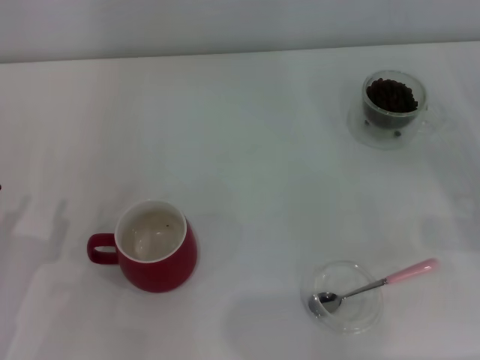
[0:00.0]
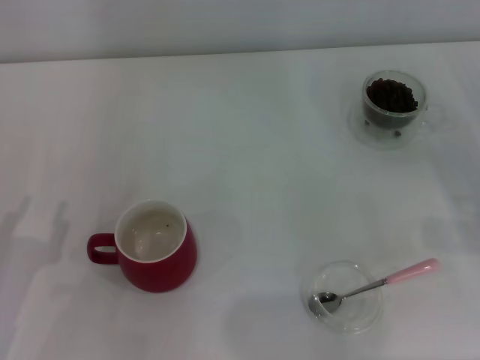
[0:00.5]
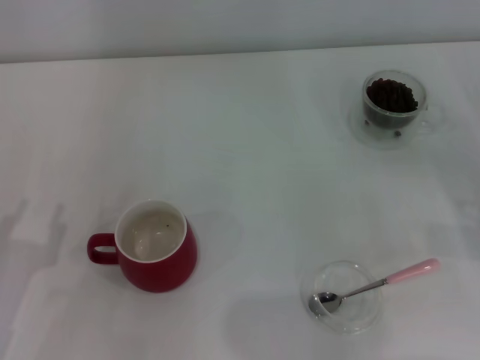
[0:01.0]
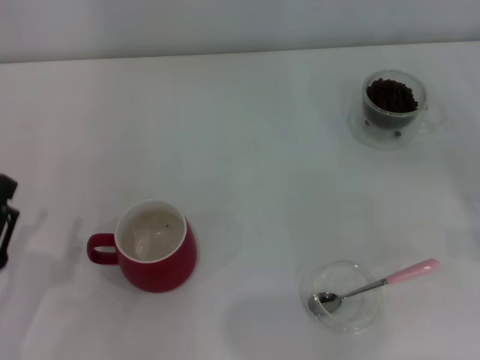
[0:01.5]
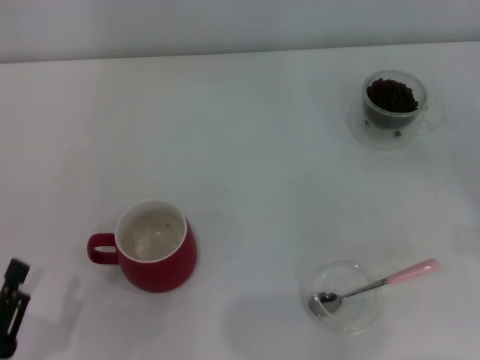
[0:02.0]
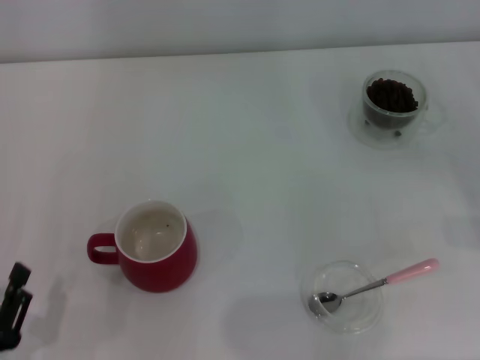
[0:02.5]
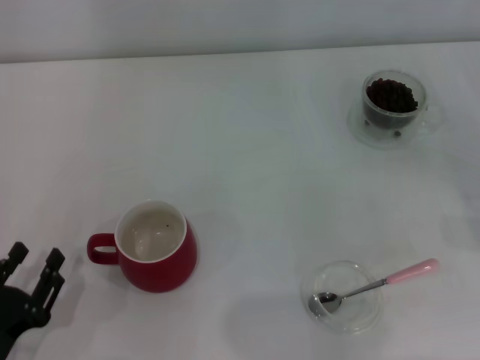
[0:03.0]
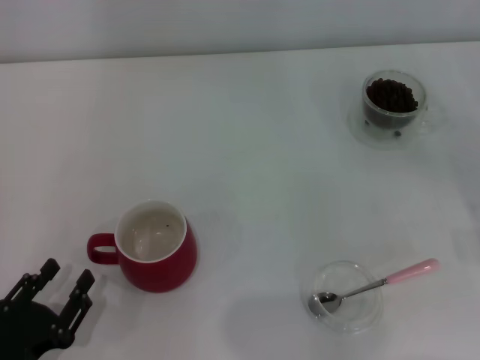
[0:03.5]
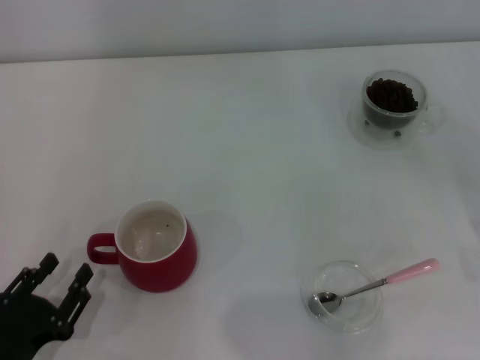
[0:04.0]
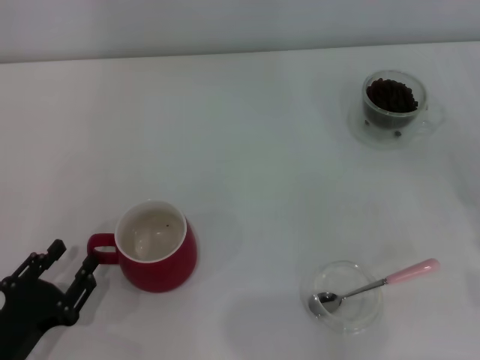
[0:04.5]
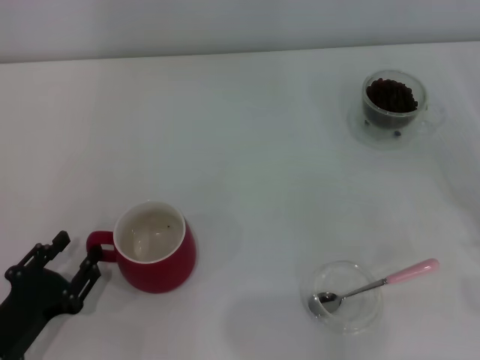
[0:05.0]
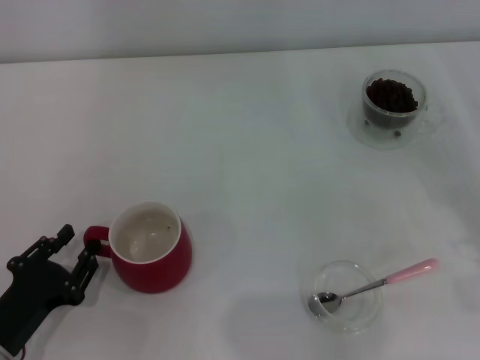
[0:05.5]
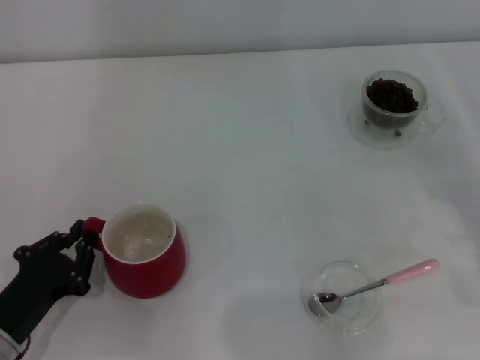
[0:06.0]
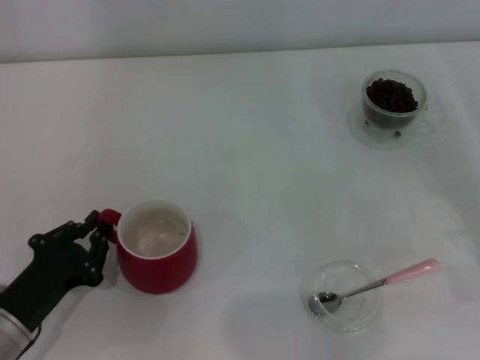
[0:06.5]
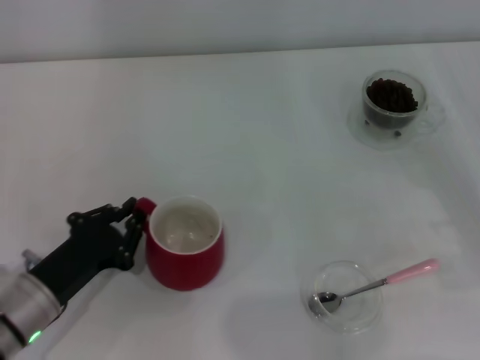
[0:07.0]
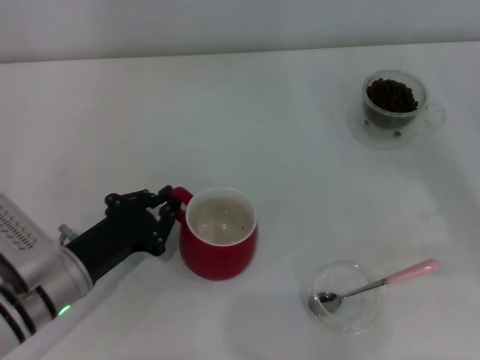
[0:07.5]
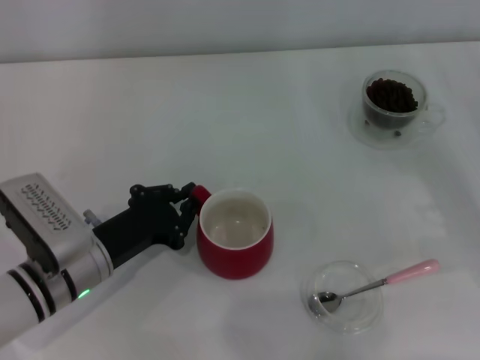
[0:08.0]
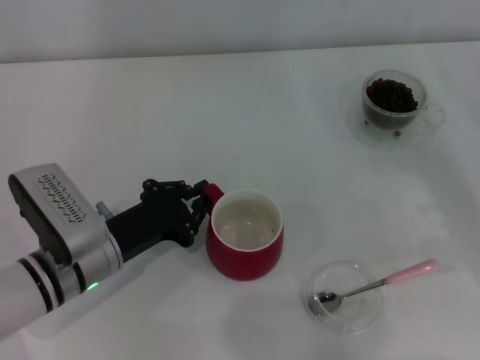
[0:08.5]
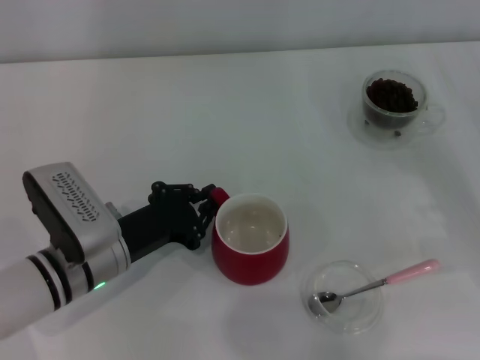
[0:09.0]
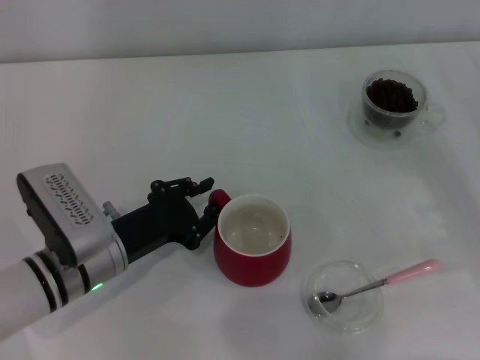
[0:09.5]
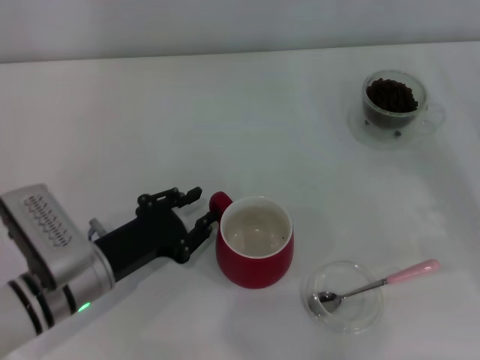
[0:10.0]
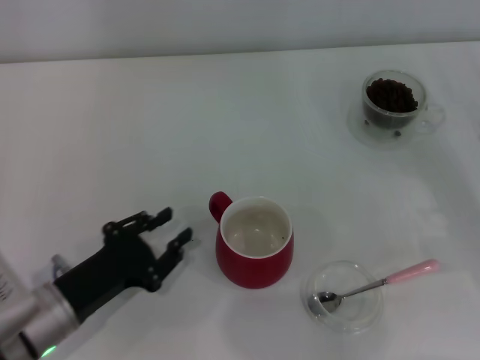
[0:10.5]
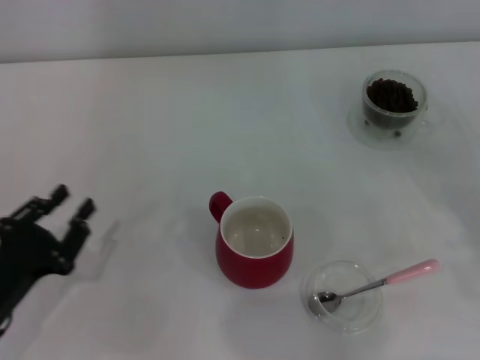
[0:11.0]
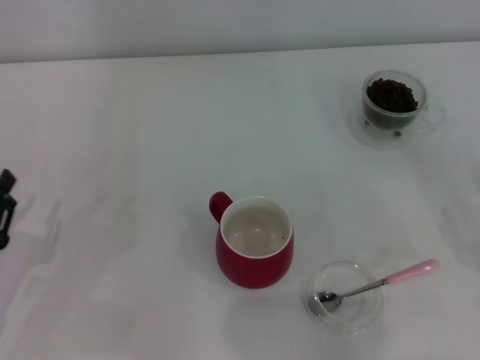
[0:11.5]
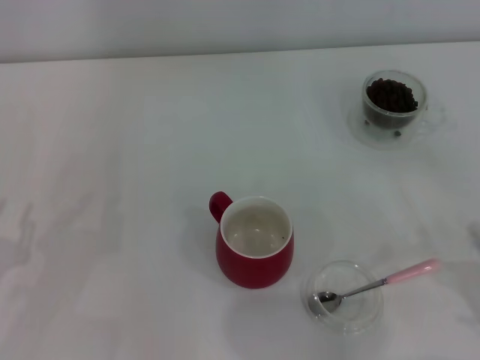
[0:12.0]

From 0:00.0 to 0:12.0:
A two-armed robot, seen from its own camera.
Task of the whole recording: Use a pink spoon to take out the coffee beans from the glass and pour them into the red cup.
Step, from 0:00.0 to 0:10.0: Move the cup to the center of view with the left gripper.
From 0:00.0 to 0:02.0: The left gripper heads backward, covering roughly 10 cm.
From 0:02.0 to 0:04.0: The left gripper ends up roughly 5 cm from where it was.
From 0:04.0 to 0:06.0: The left gripper is displaced forward by roughly 5 cm, and closes its fingers.
From 0:06.0 to 0:08.0: The left gripper shifts some 10 cm forward and to the right.
From 0:08.0 to 0:10.0: The left gripper opens its fingers.
From 0:10.0 to 0:12.0: The left gripper travels to the left and backward by roughly 15 cm, while the right gripper heads backward and downward, covering about 15 cm.

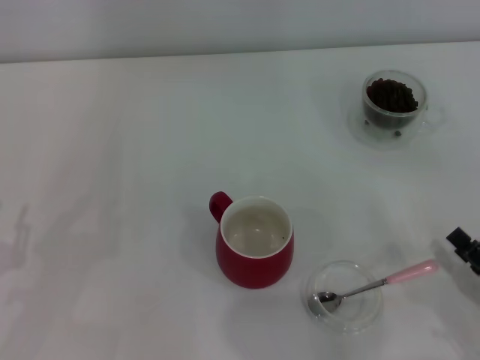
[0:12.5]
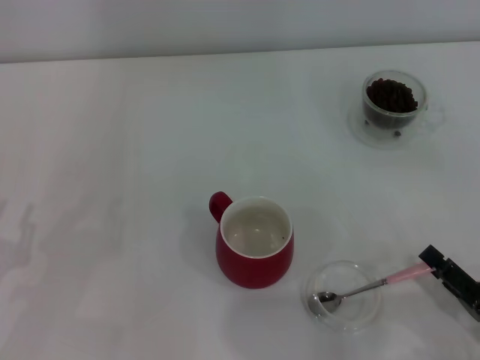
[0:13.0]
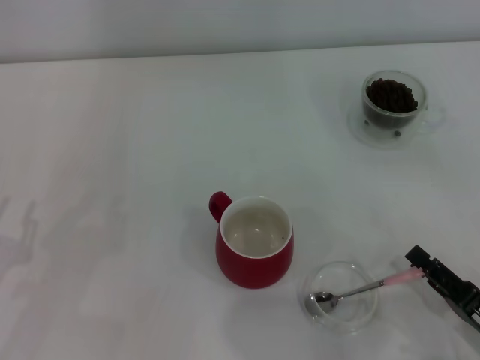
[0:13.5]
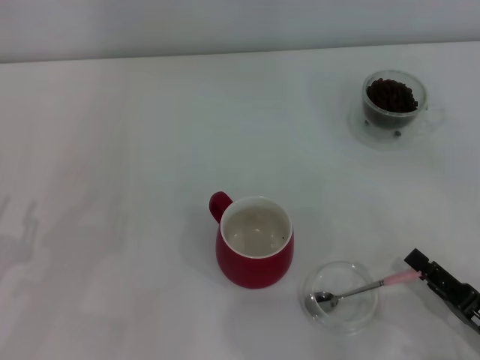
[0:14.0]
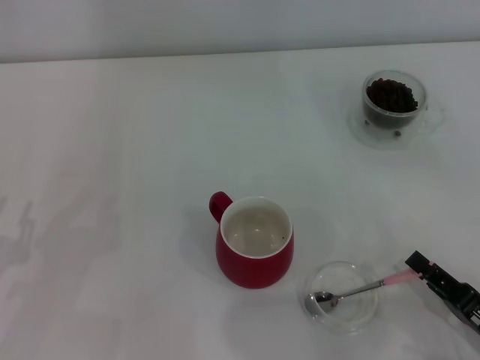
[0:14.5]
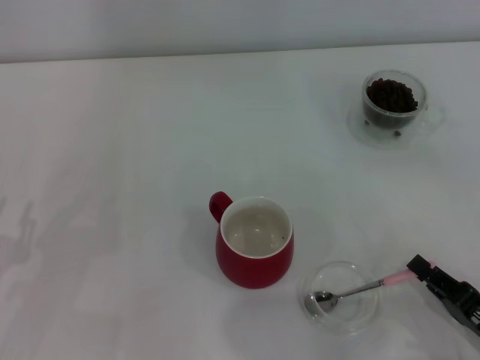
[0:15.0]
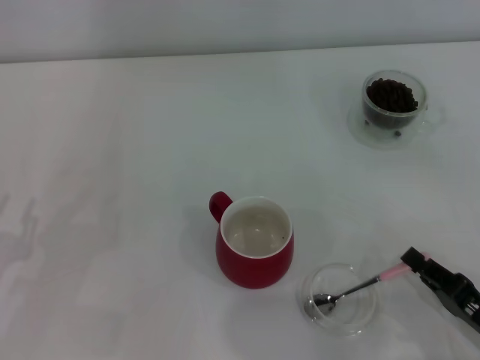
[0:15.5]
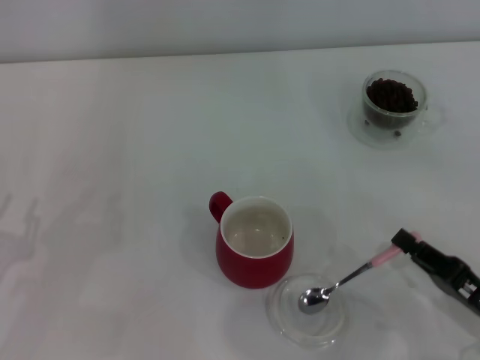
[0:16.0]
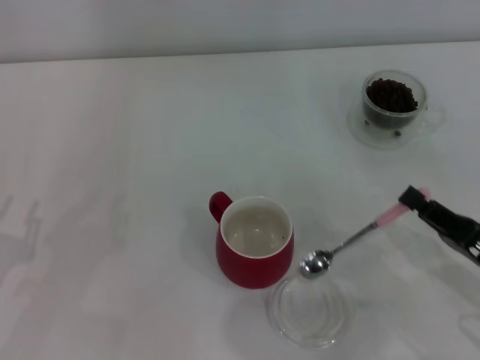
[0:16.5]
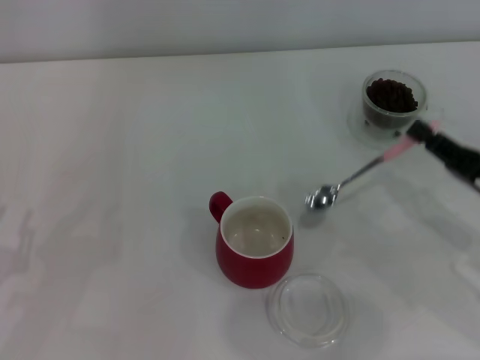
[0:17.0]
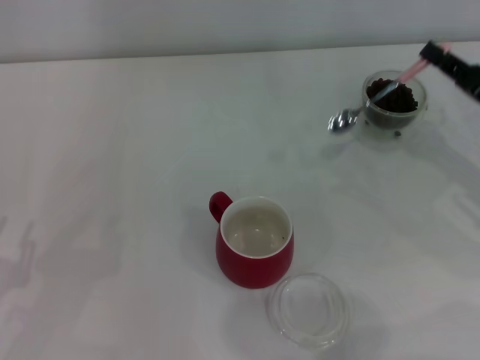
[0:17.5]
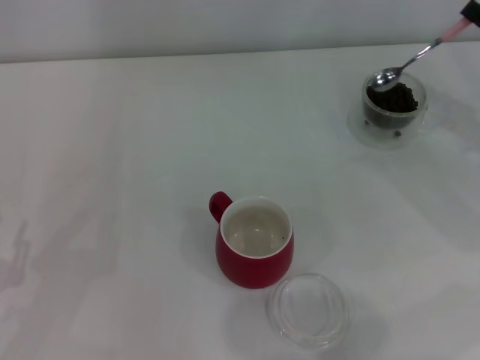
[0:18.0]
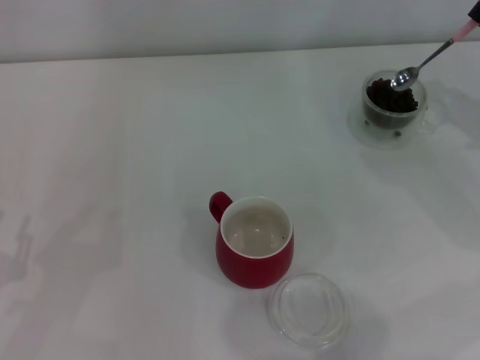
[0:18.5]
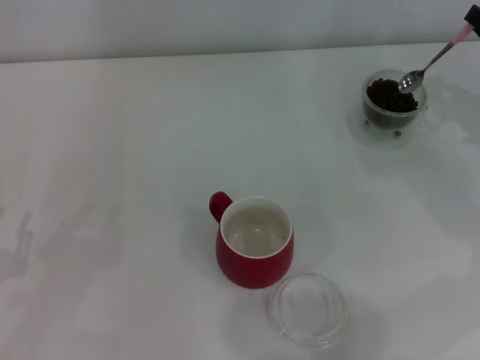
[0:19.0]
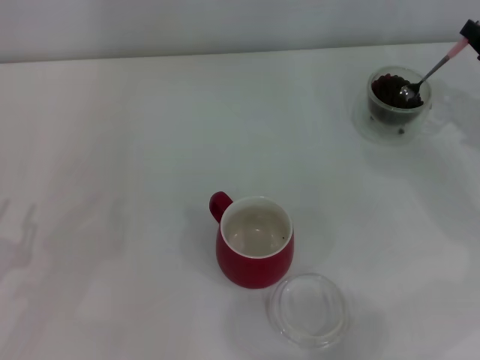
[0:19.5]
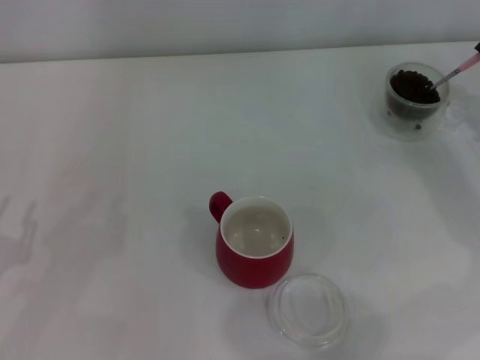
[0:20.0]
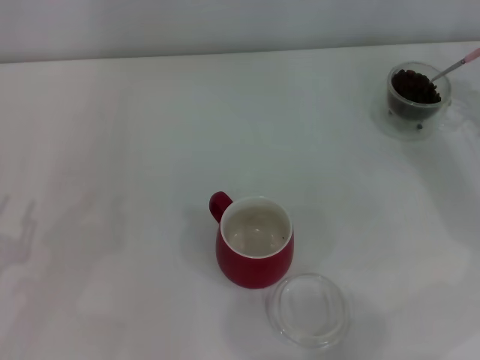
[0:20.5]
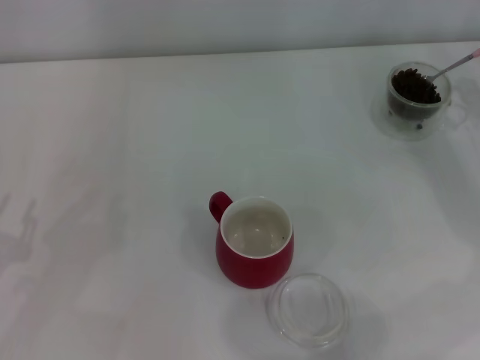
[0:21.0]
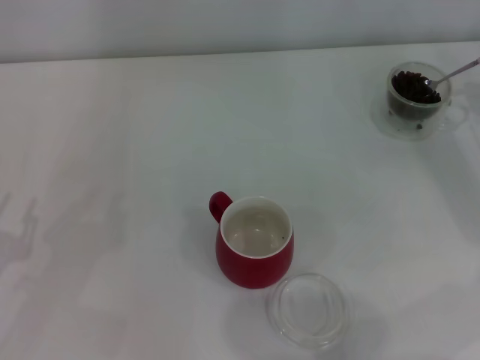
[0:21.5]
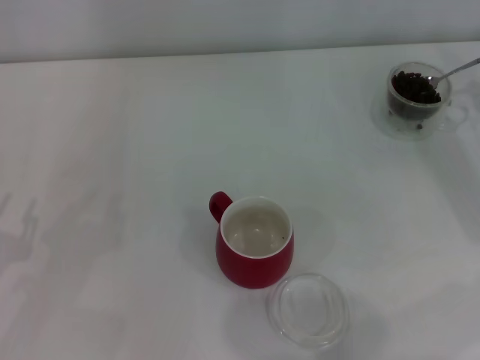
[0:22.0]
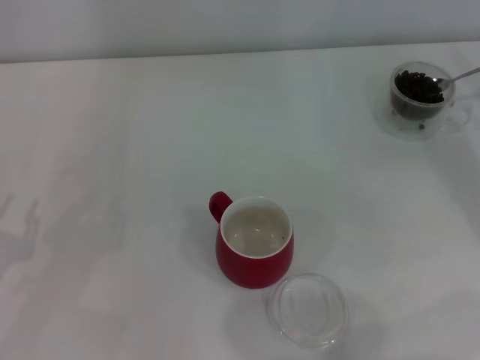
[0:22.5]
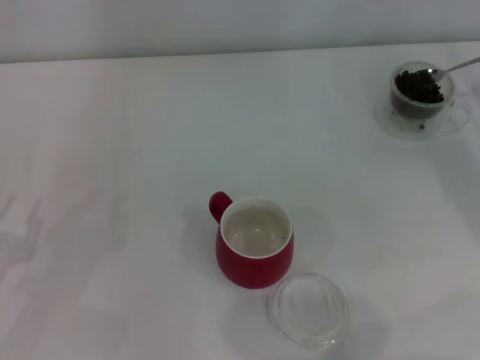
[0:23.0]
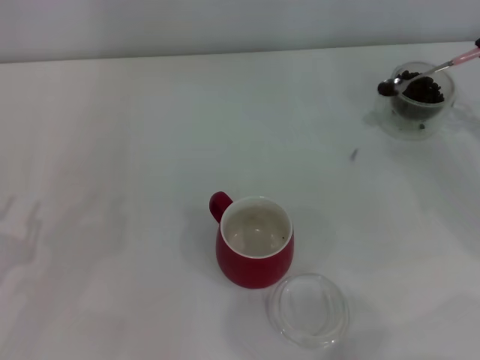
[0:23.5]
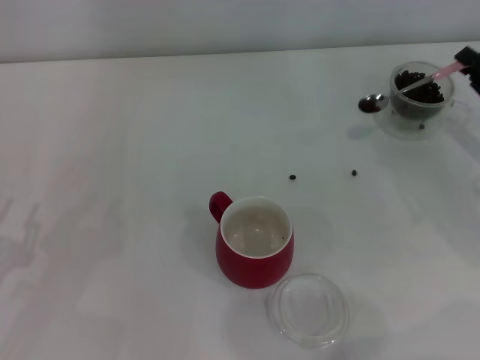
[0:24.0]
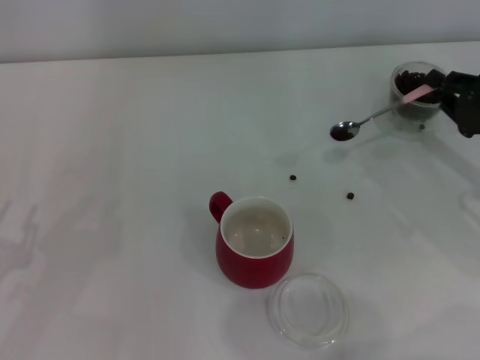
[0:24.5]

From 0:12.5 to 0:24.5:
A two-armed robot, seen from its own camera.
Task of the whole recording: Use a pink spoon to take out the coffee beans from the glass and pour them into the red cup.
Step, from 0:12.5 to 0:16.5: Pick up the spoon with the right gripper.
From 0:12.5 to 0:14.5: The right gripper closes.
From 0:14.5 to 0:16.5: The right gripper goes some 5 cm forward, and closes up.
From 0:16.5 to 0:18.5: The right gripper heads forward, to the right and upward, covering some 20 cm.
From 0:22.5 to 0:24.5: The right gripper heads to the left, covering roughly 5 cm.

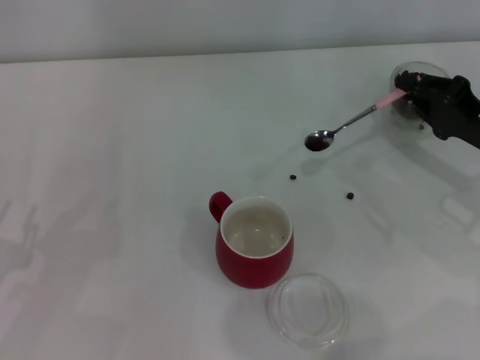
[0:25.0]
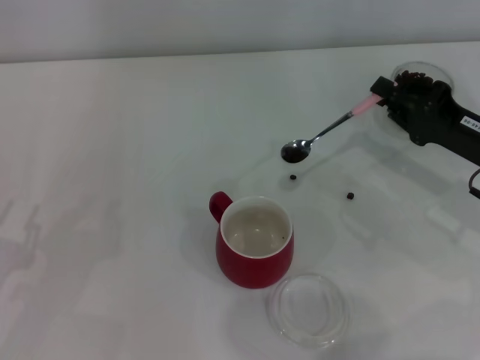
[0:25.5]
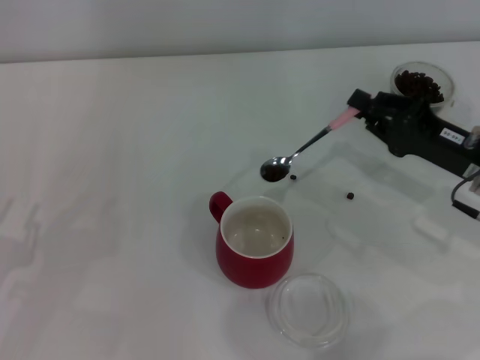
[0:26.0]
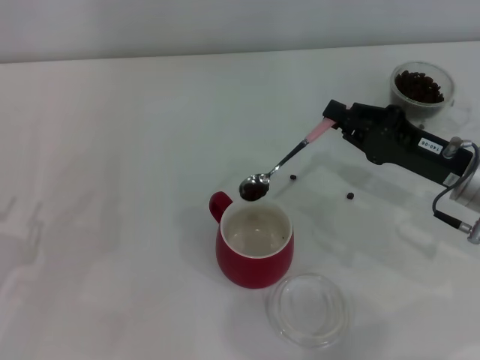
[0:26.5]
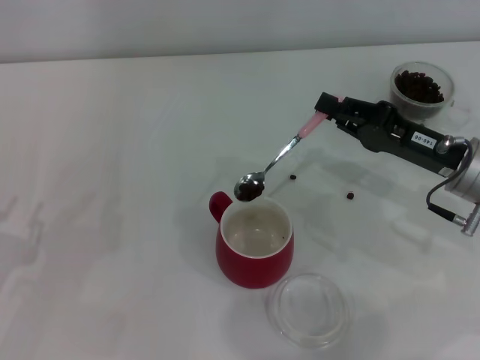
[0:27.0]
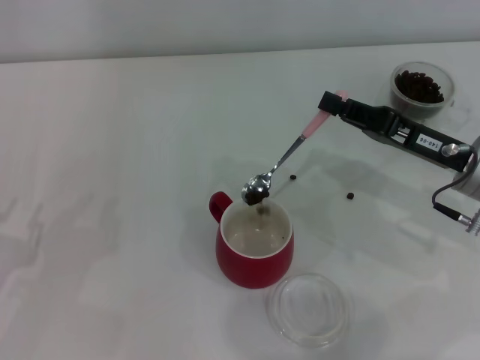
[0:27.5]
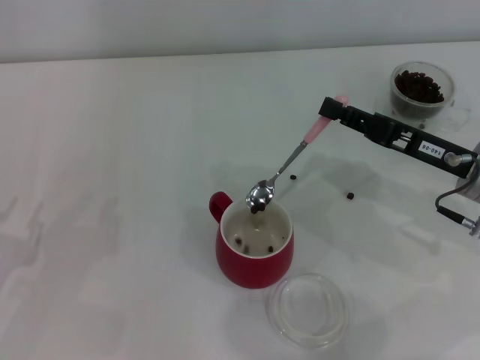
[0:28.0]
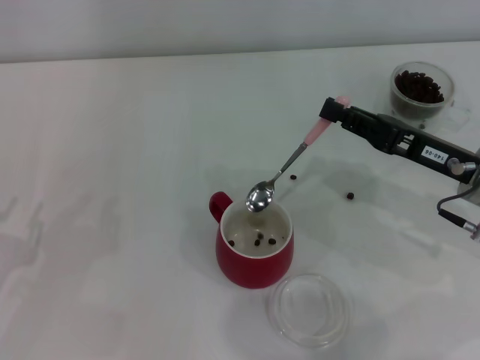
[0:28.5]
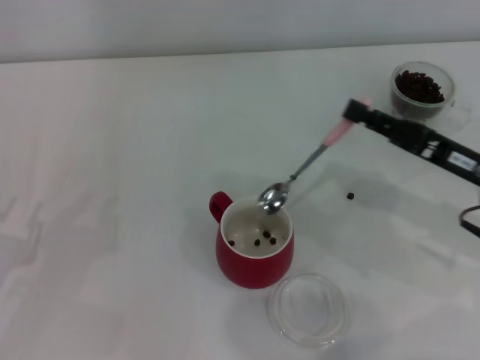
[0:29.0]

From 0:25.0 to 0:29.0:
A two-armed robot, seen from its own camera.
Task of the whole recording: Use a pink spoon to take out the coffee beans from the glass and pour them into the red cup.
From 0:25.0 to 0:27.0: The right gripper heads to the left, covering about 5 cm.
